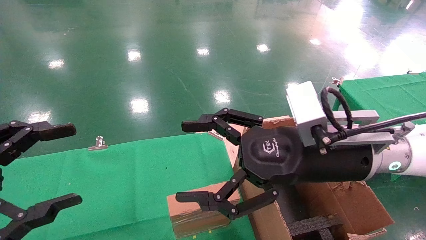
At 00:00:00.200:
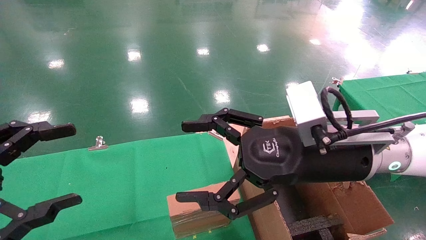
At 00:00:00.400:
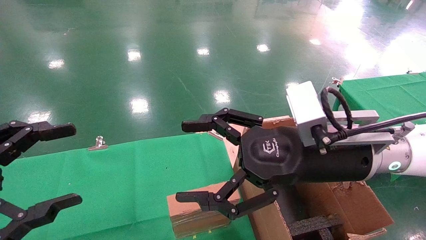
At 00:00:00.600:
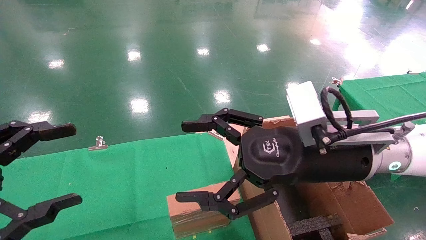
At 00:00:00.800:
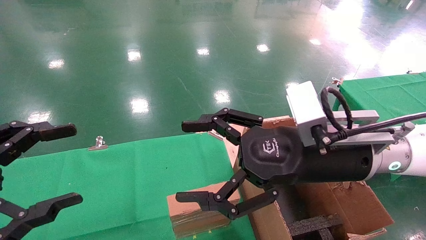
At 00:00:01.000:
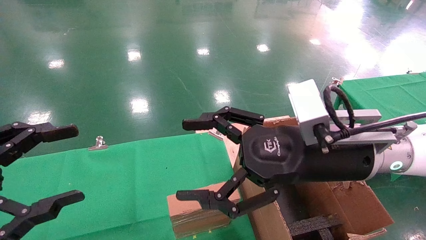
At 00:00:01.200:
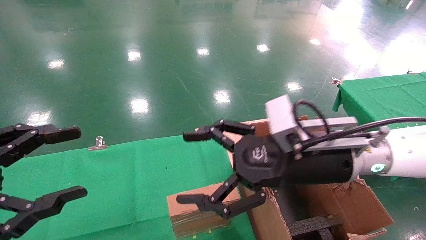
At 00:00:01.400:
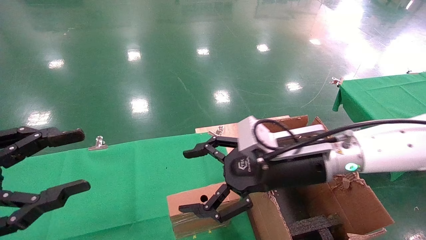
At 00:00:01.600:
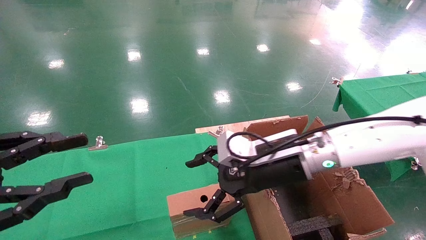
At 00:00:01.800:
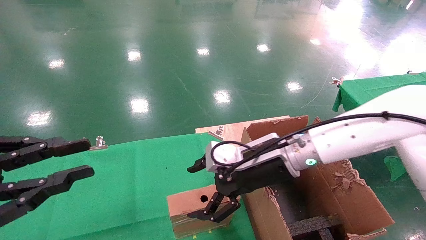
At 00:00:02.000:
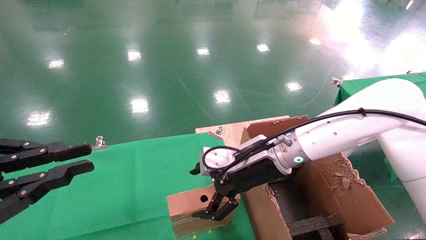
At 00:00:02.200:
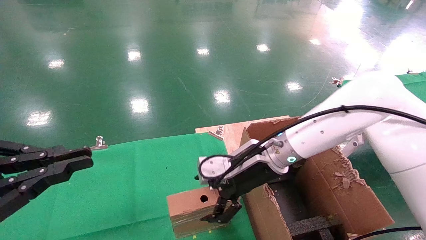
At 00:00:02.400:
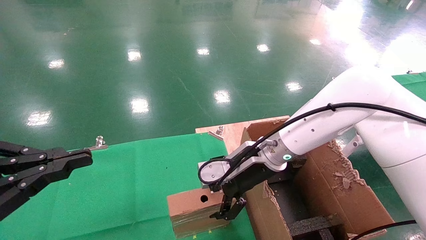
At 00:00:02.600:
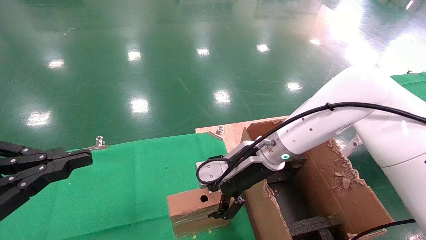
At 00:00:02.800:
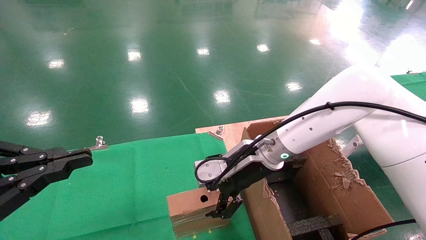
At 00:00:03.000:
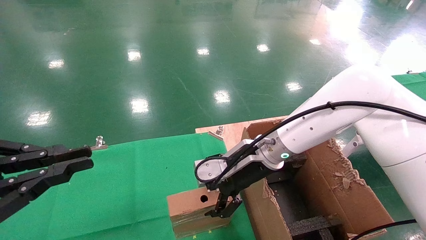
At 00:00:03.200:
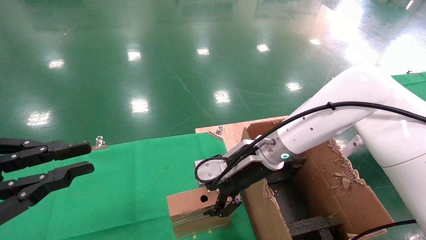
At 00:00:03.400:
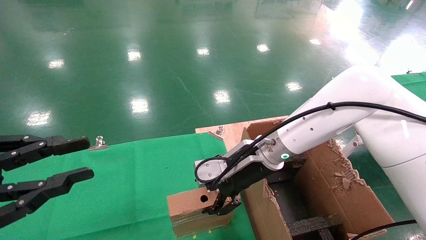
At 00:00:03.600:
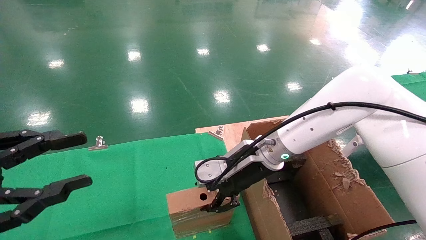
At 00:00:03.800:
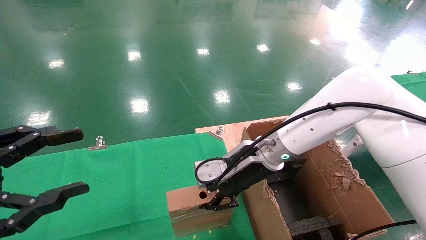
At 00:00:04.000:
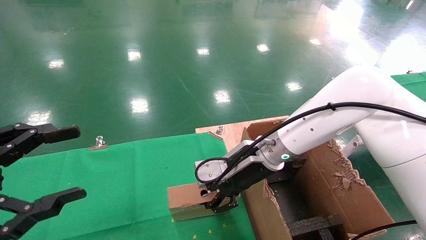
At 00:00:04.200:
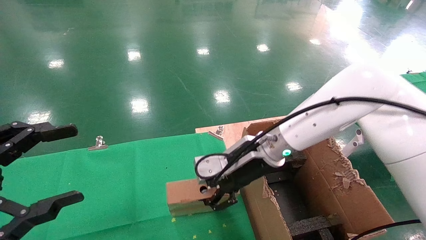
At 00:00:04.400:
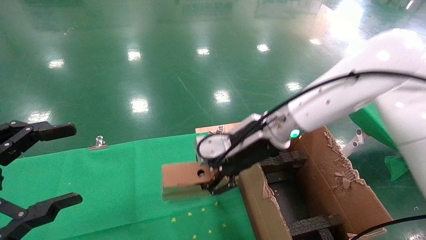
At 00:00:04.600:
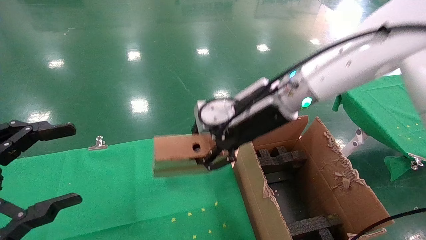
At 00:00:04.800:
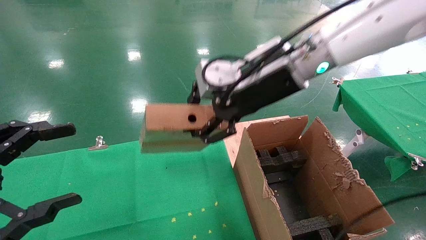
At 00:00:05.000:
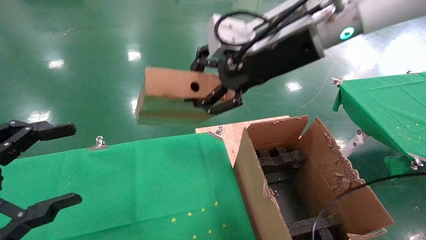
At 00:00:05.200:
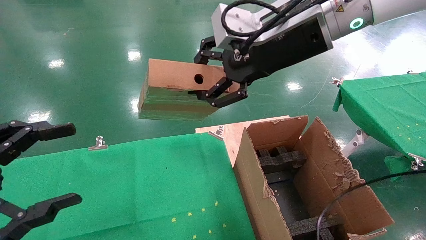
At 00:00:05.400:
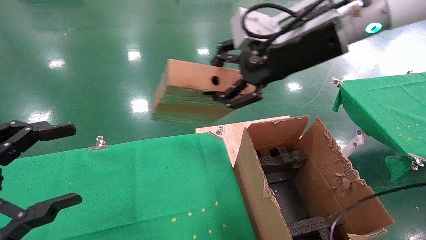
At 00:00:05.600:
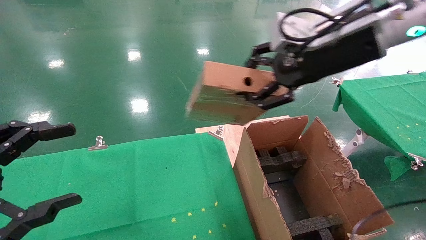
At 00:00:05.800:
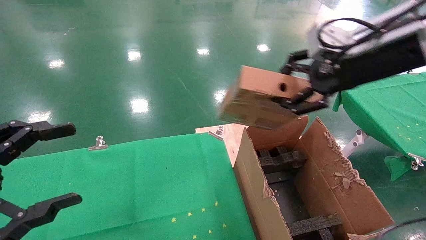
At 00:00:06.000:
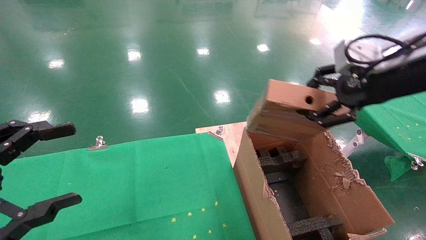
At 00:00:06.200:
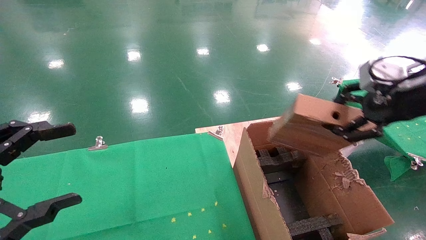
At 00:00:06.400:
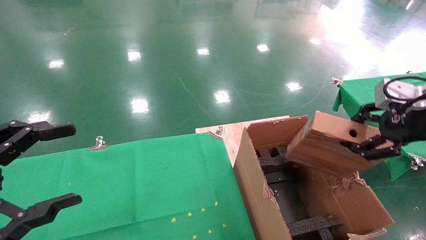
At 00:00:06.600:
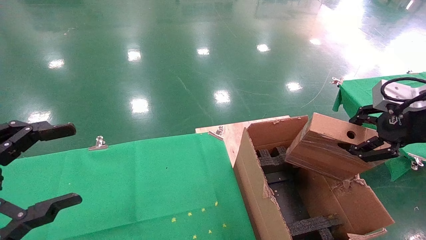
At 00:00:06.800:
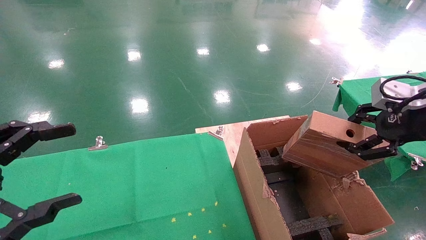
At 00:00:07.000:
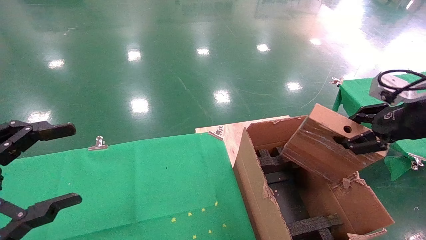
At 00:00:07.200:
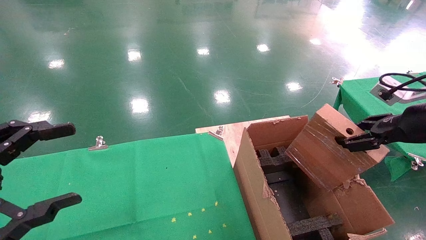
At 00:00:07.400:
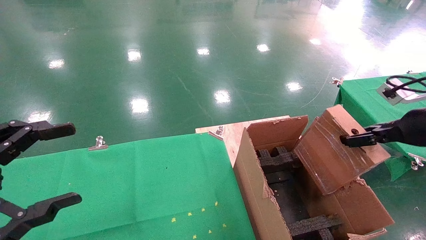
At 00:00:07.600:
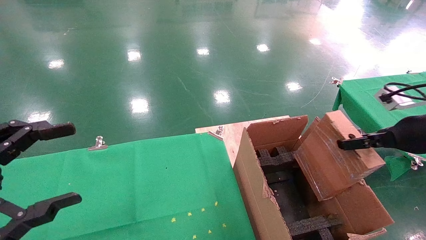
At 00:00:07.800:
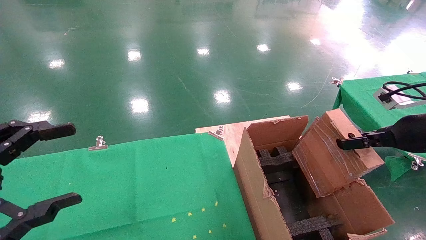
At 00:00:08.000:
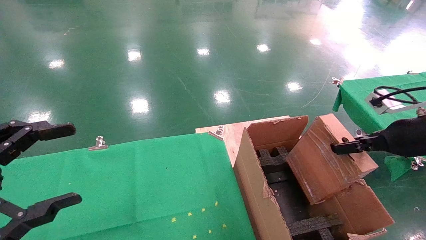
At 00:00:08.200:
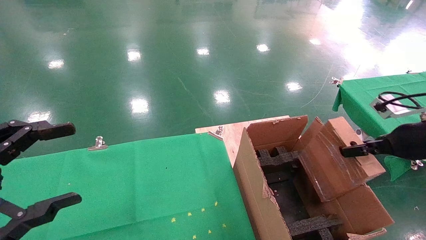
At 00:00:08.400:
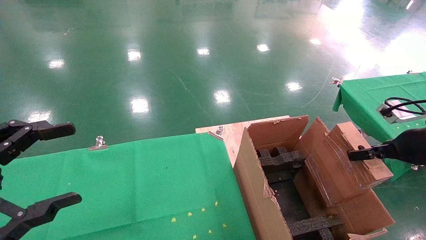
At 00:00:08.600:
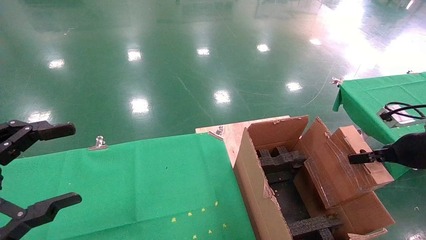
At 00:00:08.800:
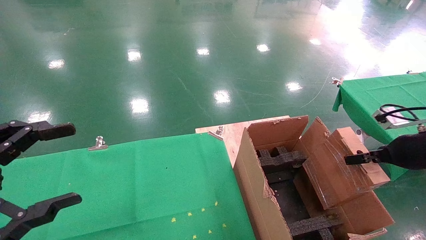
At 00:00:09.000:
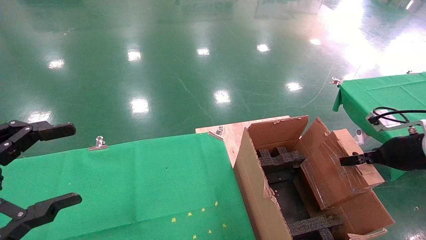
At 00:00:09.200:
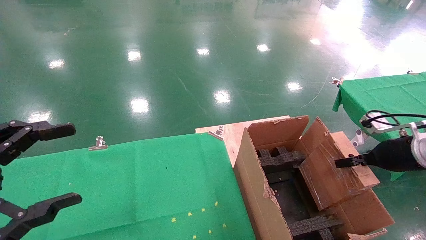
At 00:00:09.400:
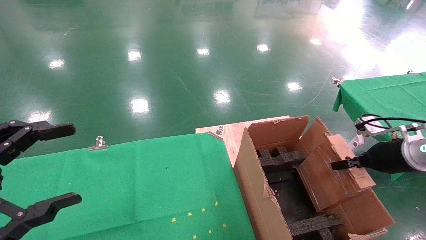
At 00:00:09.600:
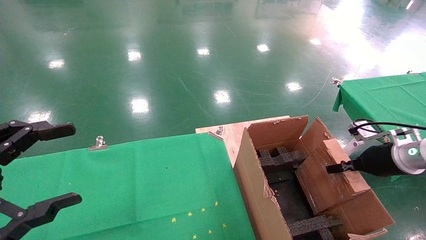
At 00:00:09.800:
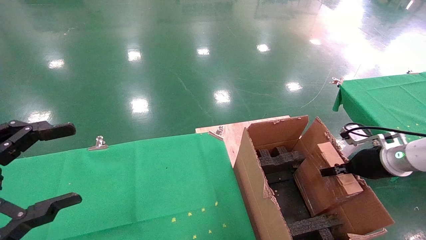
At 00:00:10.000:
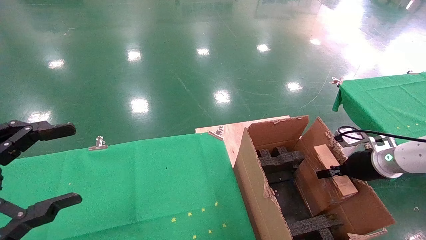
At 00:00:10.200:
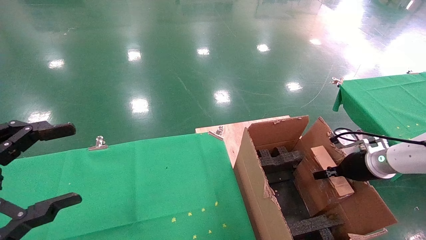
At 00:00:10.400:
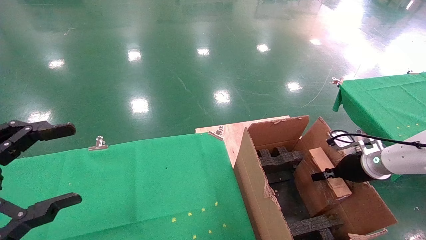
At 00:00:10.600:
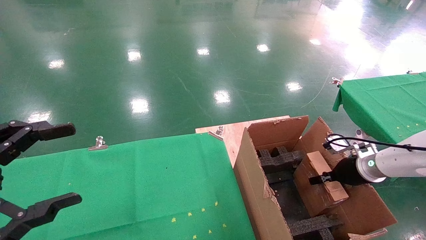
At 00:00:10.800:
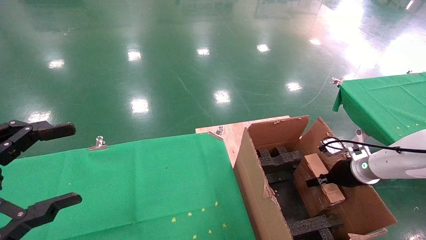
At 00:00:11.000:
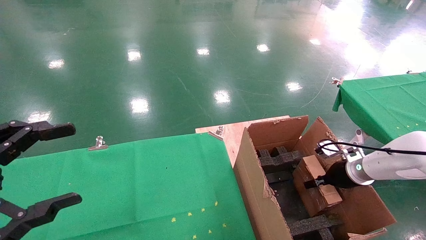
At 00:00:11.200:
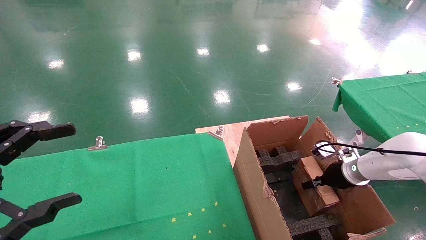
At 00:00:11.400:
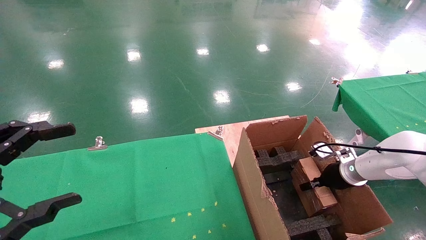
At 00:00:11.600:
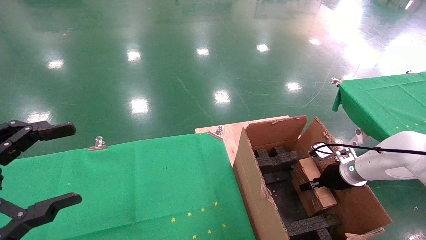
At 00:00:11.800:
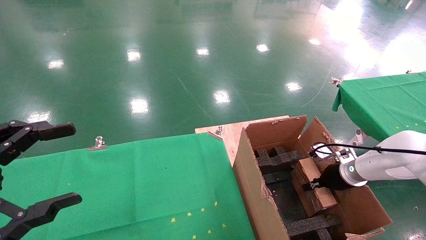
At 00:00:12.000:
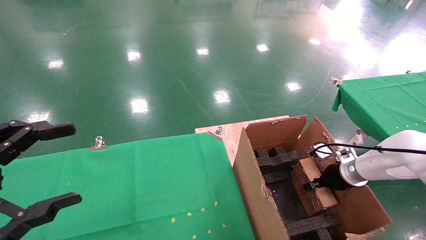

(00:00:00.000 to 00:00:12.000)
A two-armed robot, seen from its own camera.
Task of the whole recording: using a robotic arm to pick up a cardboard box and palace it the carton.
Step, 00:00:01.400 - 00:00:04.000: Pick up the mouse and the power cord paper box.
00:00:00.000 - 00:00:01.600: The right gripper is displaced forward and downward by about 10 cm; the left gripper closes.
00:00:01.600 - 00:00:03.000: The right gripper heads forward, covering about 5 cm; the left gripper closes.
00:00:03.000 - 00:00:04.400: The left gripper opens up, while the right gripper travels upward by roughly 5 cm, and closes.
00:00:04.400 - 00:00:06.000: The right gripper heads to the right, upward and backward, covering some 25 cm.
00:00:06.000 - 00:00:07.600: The right gripper heads downward and to the right, covering roughly 15 cm.
00:00:07.600 - 00:00:09.000: The right gripper moves downward, about 5 cm.
00:00:09.000 - 00:00:10.400: The right gripper shifts some 10 cm downward and forward.
00:00:10.400 - 00:00:12.000: The right gripper moves roughly 5 cm.

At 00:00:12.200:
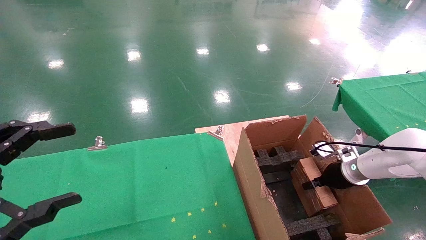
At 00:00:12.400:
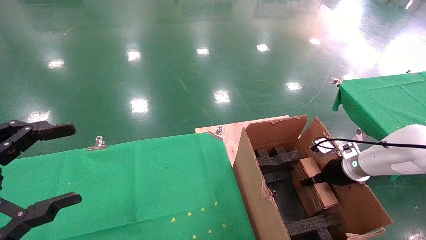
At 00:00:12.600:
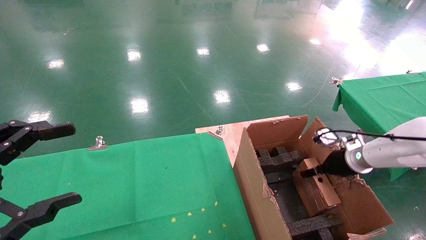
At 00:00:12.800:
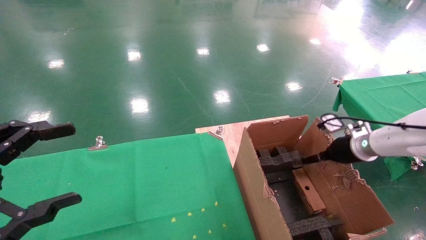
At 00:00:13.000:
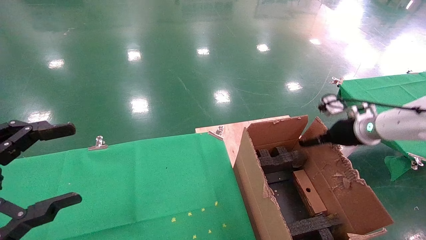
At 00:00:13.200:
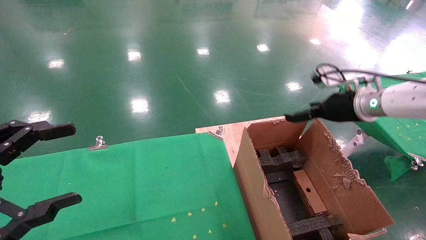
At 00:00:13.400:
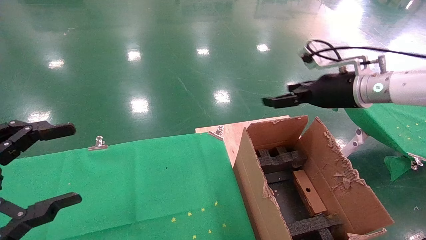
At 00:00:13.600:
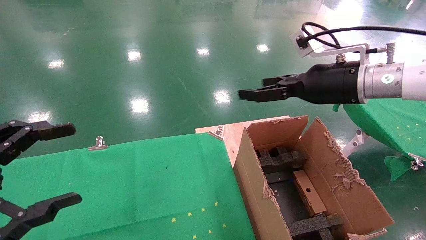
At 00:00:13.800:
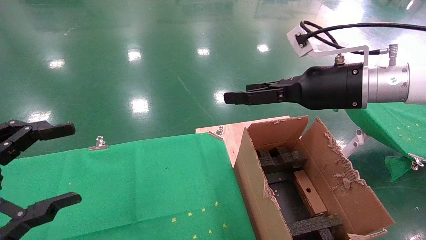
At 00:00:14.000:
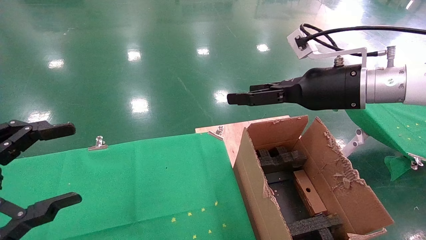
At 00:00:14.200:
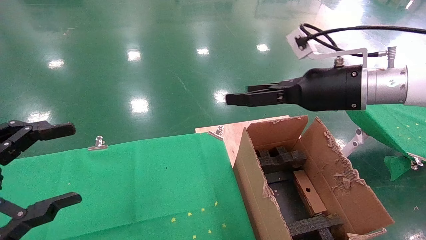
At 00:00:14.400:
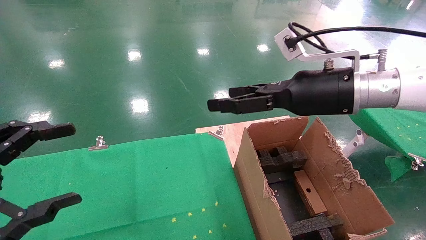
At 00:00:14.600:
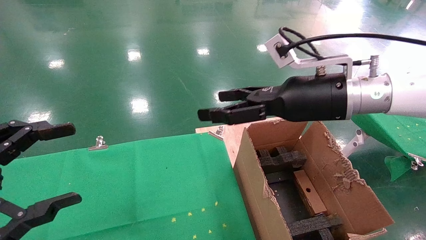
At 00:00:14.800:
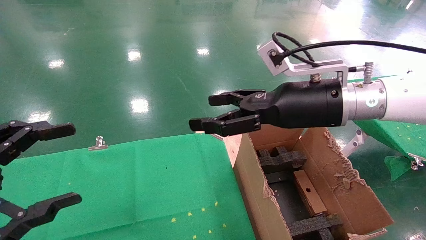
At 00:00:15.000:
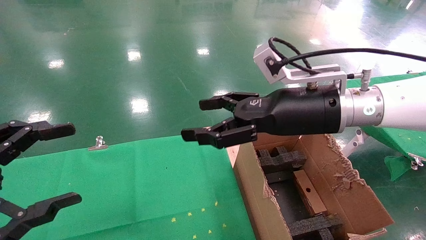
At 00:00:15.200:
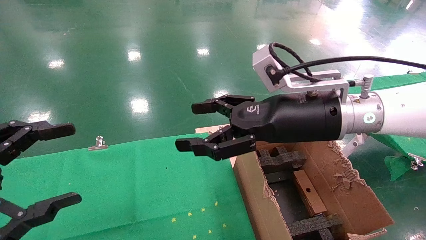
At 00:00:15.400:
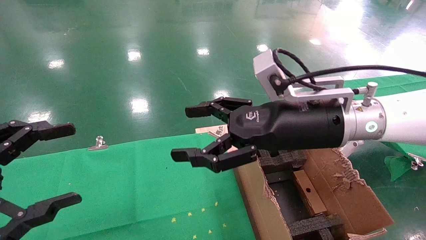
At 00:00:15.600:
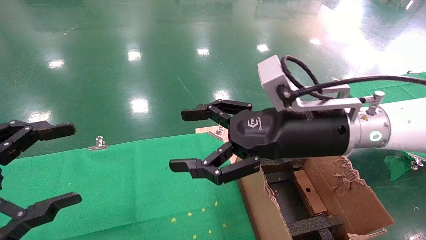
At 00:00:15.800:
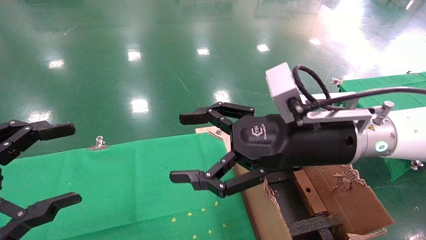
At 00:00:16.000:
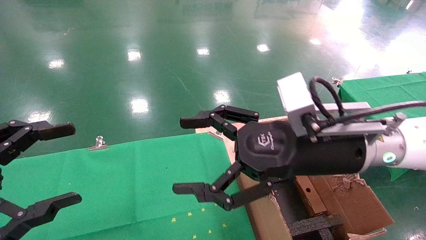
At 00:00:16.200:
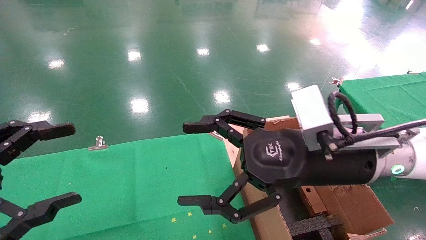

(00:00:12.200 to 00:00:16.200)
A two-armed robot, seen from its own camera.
Task of the whole recording: using a robotic arm to pick up a cardboard box and palace it the carton.
00:00:12.200 - 00:00:13.600: The right gripper is displaced upward and to the left by approximately 25 cm, and opens its fingers.
00:00:13.600 - 00:00:14.800: The right gripper travels to the left by some 10 cm.
00:00:14.800 - 00:00:16.200: The right gripper heads backward, covering roughly 5 cm.
